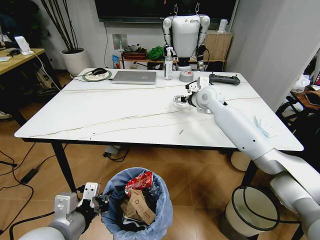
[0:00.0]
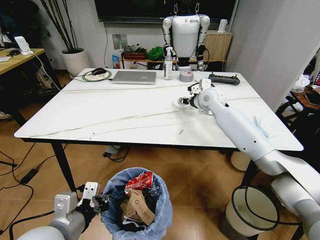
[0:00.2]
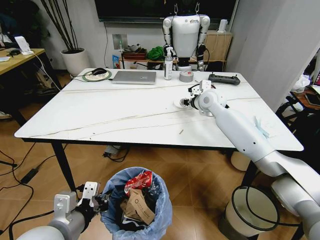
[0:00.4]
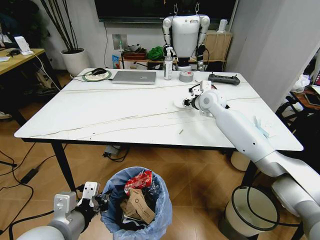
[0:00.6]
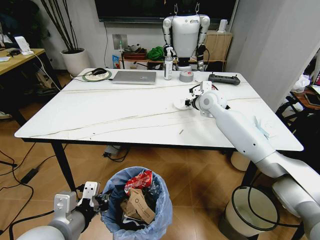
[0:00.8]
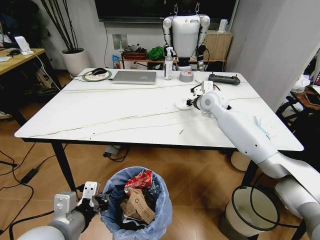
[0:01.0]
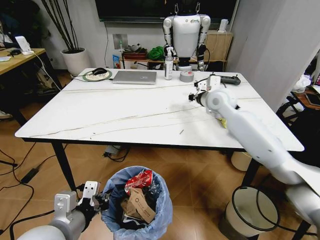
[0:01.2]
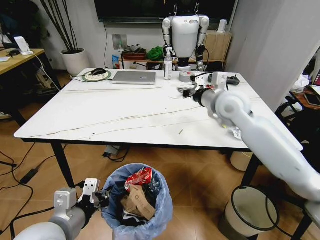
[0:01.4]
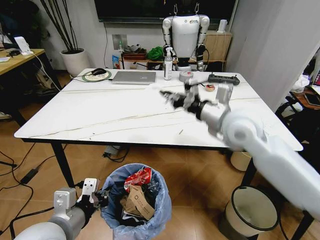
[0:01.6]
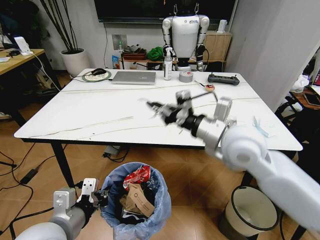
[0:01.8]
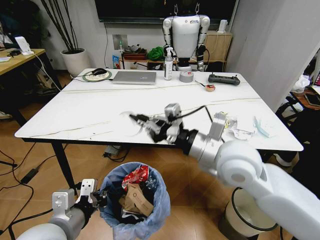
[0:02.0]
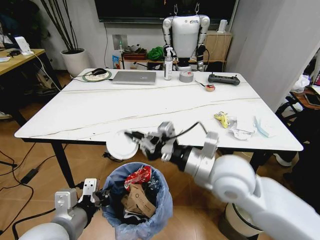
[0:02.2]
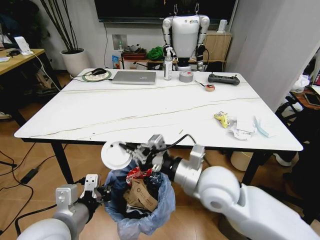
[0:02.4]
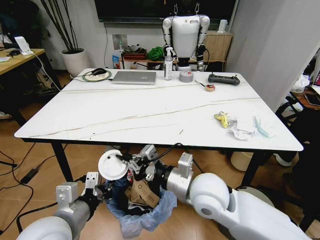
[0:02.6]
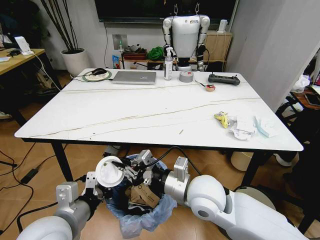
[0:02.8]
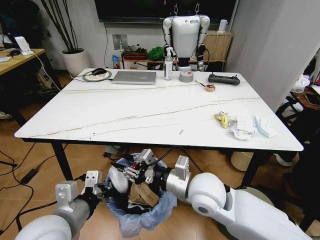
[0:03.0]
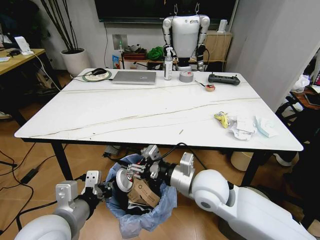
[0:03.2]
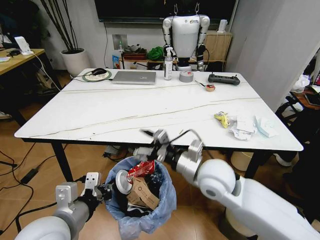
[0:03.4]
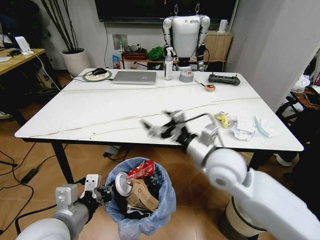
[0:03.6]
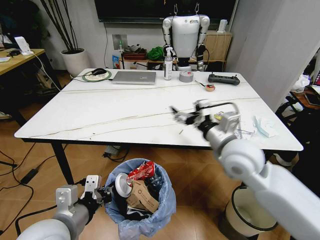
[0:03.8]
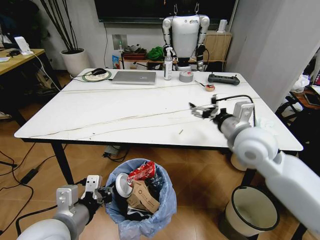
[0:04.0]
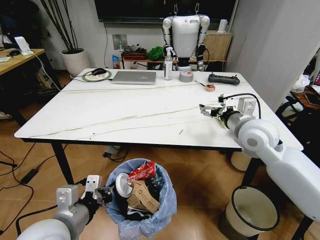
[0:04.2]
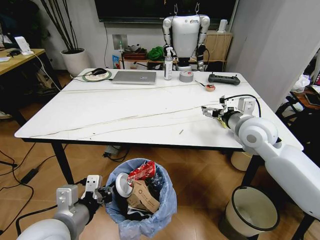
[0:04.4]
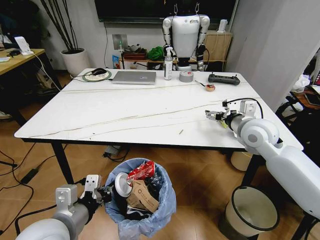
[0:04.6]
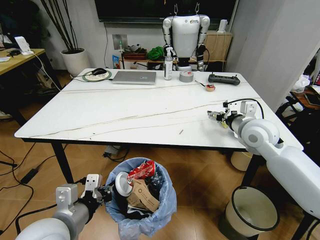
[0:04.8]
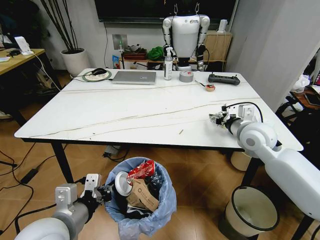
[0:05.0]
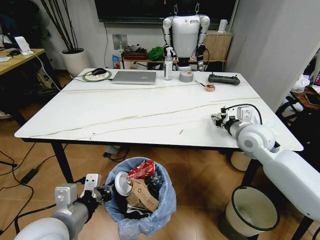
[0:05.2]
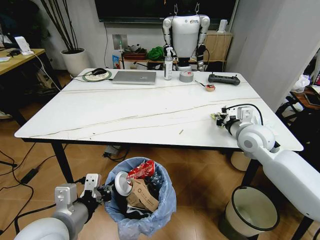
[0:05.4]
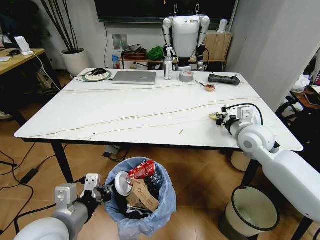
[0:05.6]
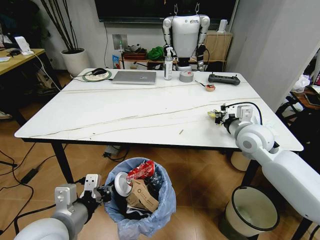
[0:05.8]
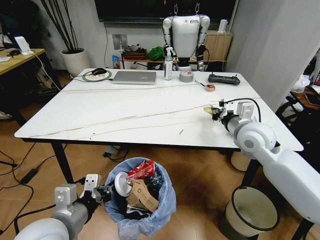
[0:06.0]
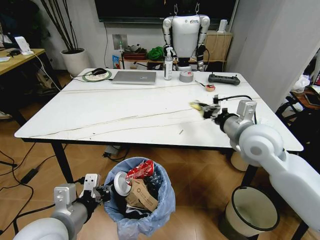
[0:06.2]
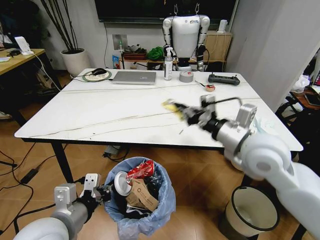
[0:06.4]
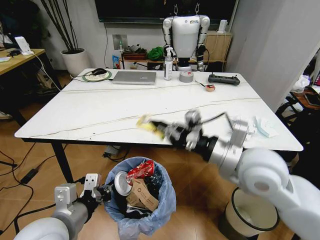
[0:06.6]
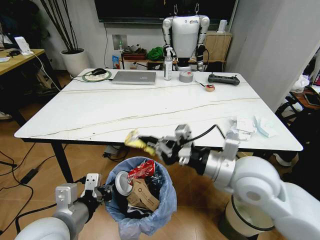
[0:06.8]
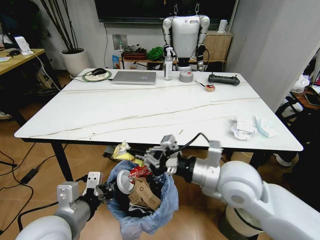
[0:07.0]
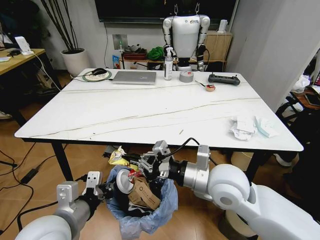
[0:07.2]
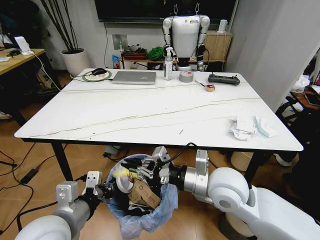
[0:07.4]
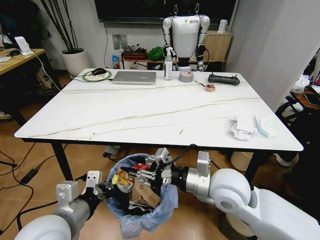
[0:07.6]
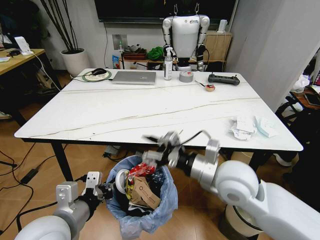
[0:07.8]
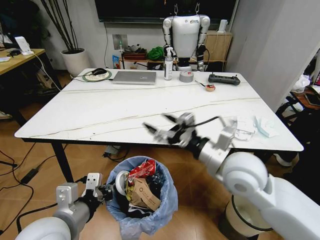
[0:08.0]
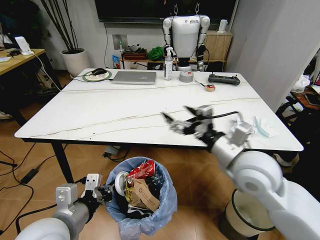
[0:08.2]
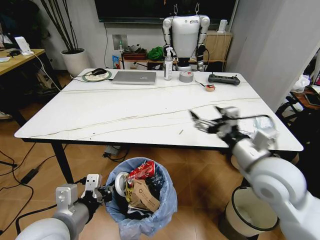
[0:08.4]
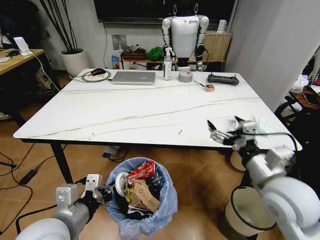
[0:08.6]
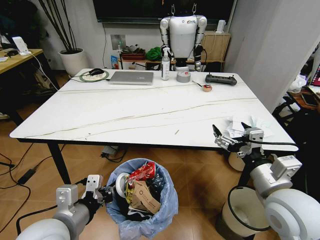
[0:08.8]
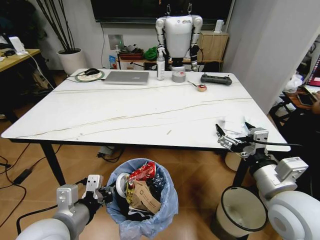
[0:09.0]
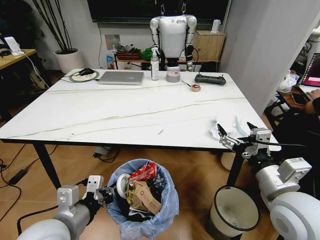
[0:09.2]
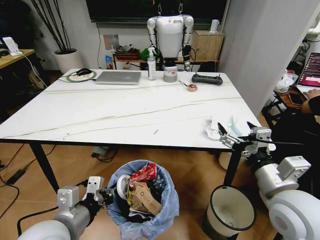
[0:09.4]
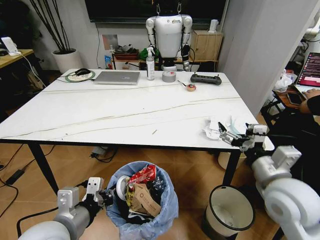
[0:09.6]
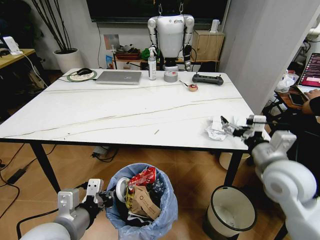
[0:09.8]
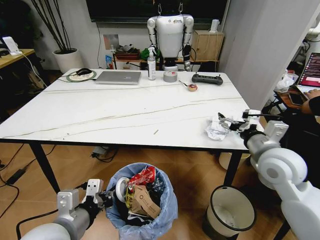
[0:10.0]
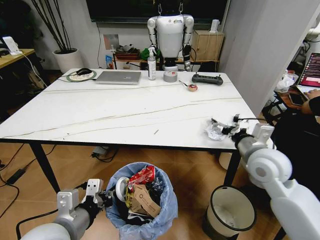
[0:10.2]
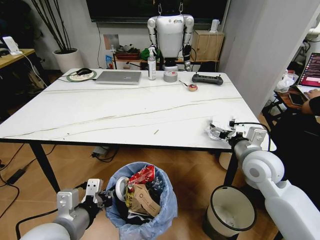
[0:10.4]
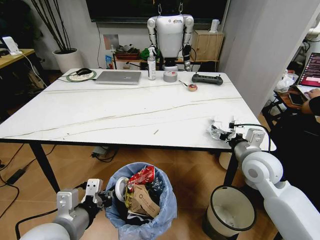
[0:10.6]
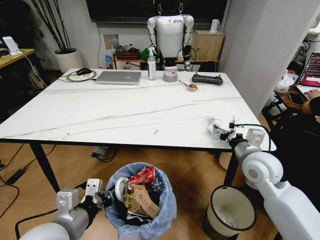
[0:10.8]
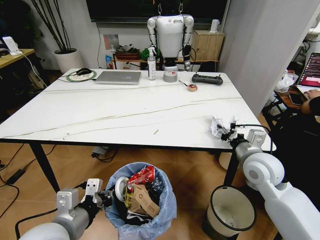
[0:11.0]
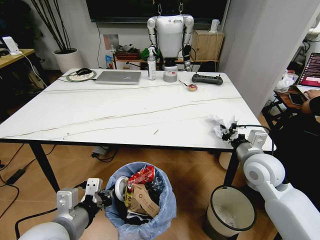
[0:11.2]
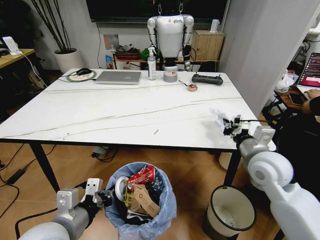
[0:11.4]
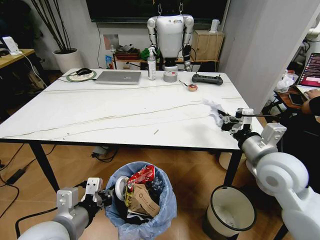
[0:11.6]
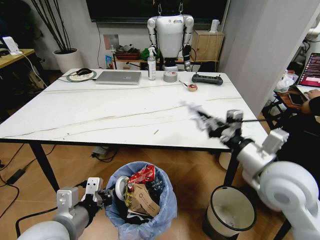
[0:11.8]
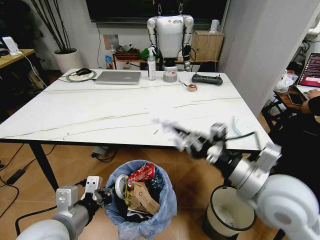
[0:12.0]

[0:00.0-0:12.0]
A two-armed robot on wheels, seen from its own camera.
Task of the whole recording: Pick up the trash bin and place the trash from the table into it.
0:00.0 to 0:01.6: The right gripper shifts about 20 cm backward, and closes its fingers.
0:01.6 to 0:03.0: The right gripper travels downward, backward and to the left by approximately 20 cm, and opens.
0:03.0 to 0:04.4: The right gripper moves to the right, forward and upward, approximately 25 cm, and opens.
0:04.4 to 0:06.0: The right gripper closes its fingers.
0:06.0 to 0:07.6: The right gripper heads backward and to the left, covering about 15 cm, and opens its fingers.
0:07.6 to 0:09.0: The right gripper is displaced to the right and backward by about 15 cm, and opens its fingers.
0:09.0 to 0:10.4: The right gripper heads forward, covering some 15 cm.
0:10.4 to 0:12.0: The right gripper moves backward and upward, approximately 10 cm, and closes.

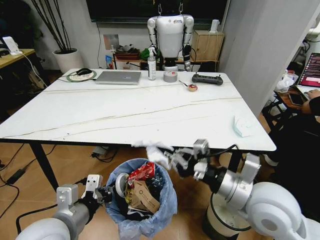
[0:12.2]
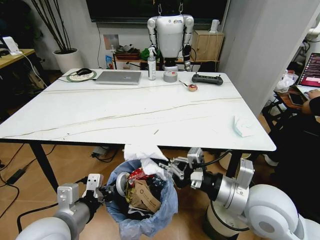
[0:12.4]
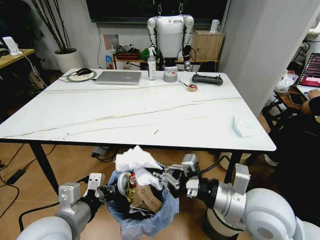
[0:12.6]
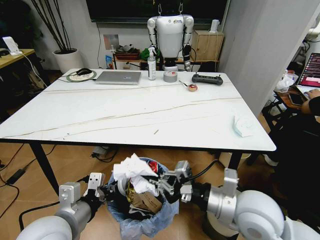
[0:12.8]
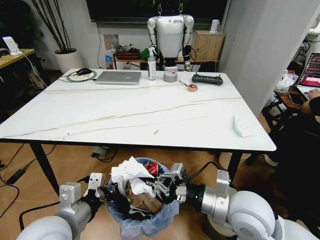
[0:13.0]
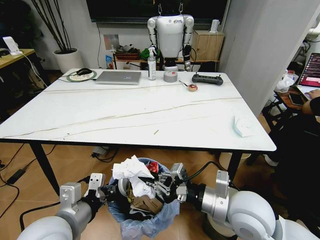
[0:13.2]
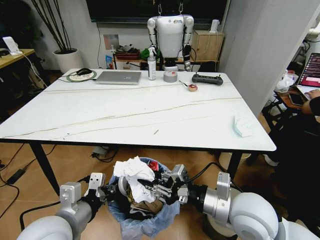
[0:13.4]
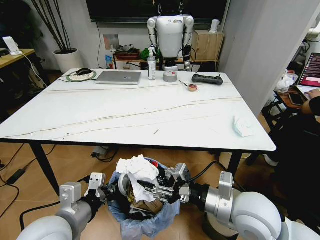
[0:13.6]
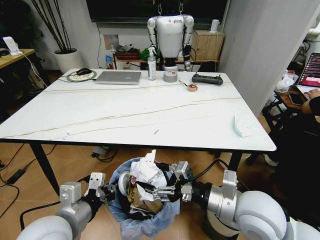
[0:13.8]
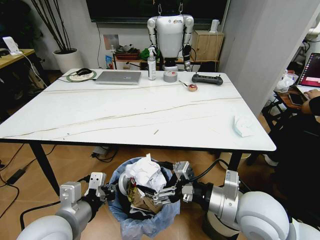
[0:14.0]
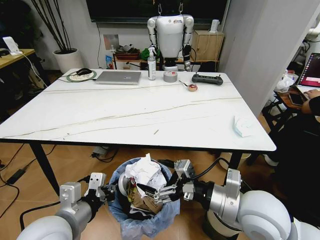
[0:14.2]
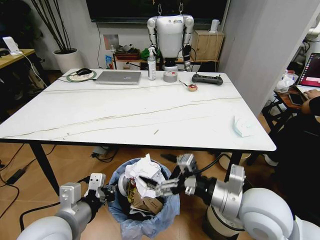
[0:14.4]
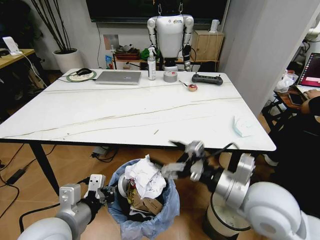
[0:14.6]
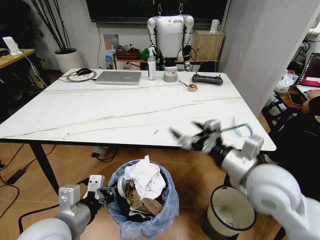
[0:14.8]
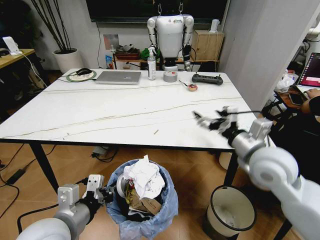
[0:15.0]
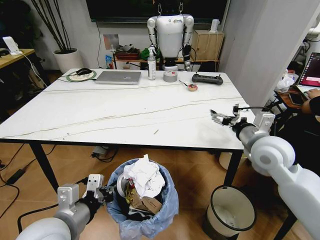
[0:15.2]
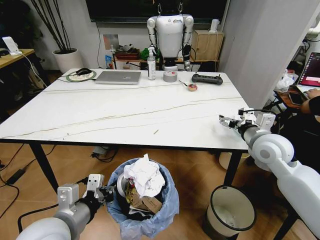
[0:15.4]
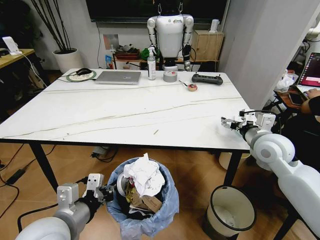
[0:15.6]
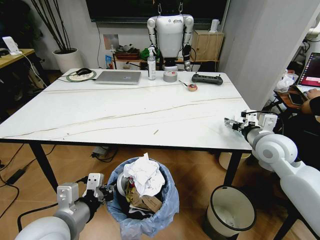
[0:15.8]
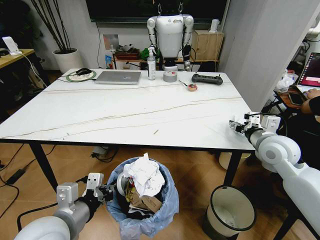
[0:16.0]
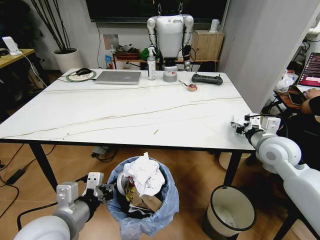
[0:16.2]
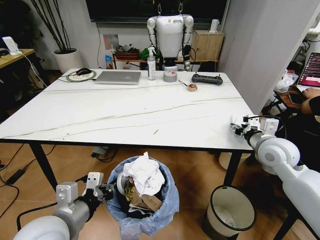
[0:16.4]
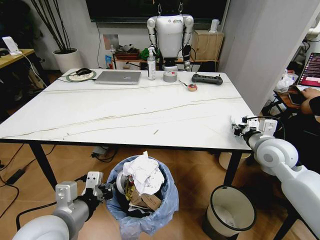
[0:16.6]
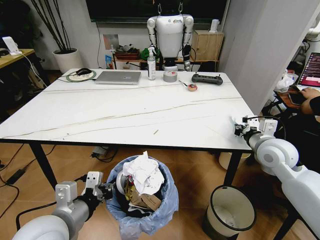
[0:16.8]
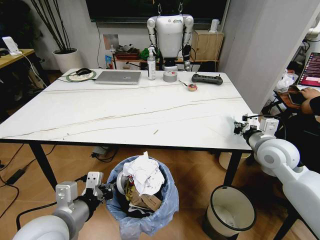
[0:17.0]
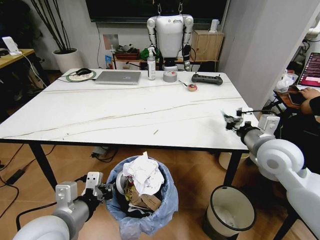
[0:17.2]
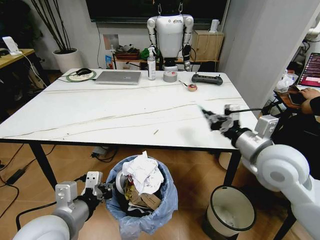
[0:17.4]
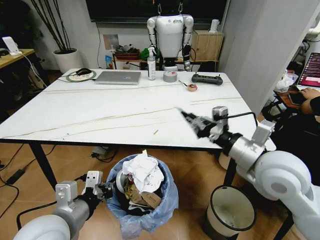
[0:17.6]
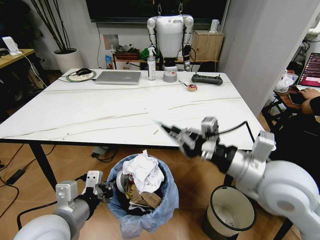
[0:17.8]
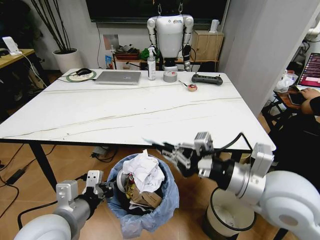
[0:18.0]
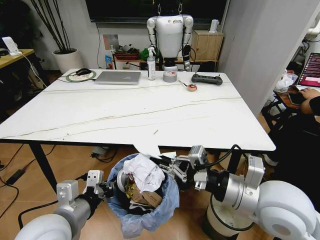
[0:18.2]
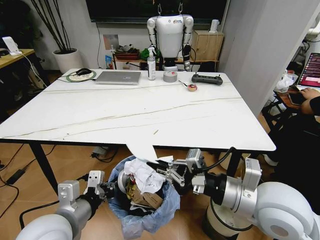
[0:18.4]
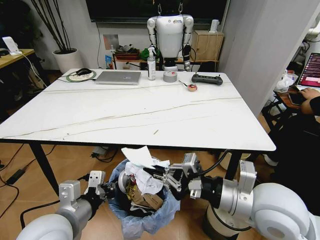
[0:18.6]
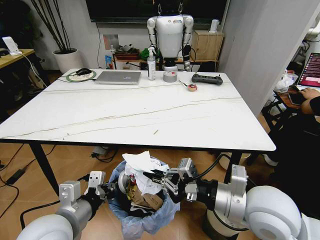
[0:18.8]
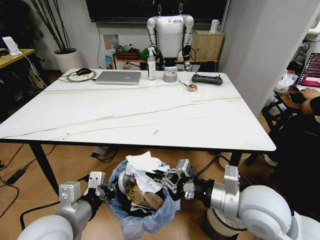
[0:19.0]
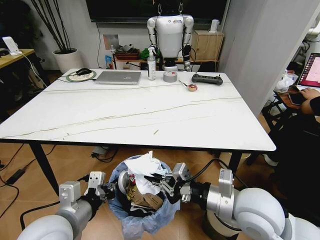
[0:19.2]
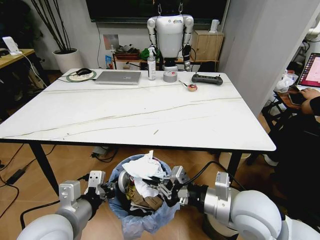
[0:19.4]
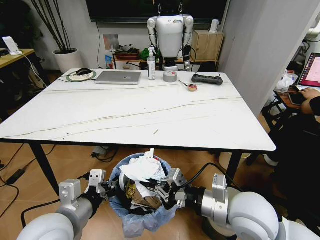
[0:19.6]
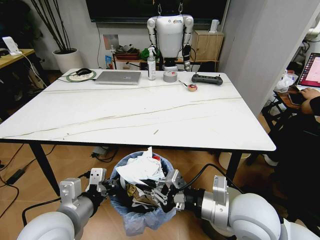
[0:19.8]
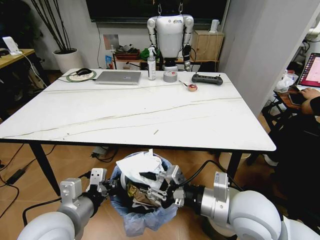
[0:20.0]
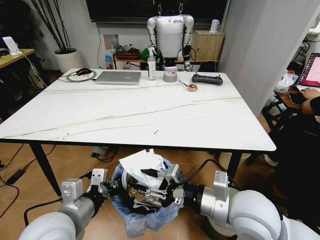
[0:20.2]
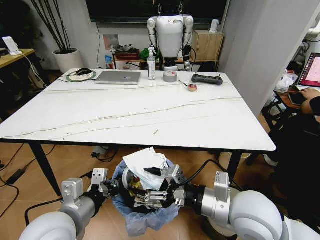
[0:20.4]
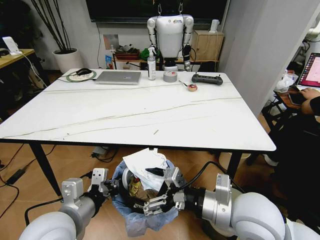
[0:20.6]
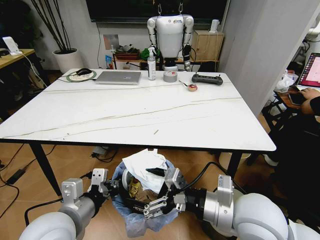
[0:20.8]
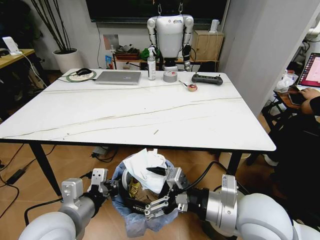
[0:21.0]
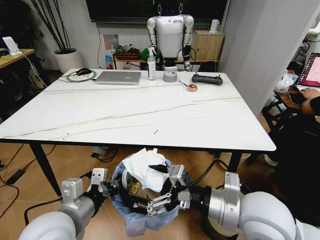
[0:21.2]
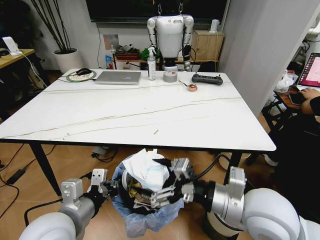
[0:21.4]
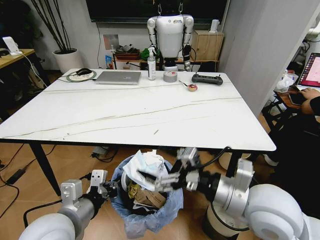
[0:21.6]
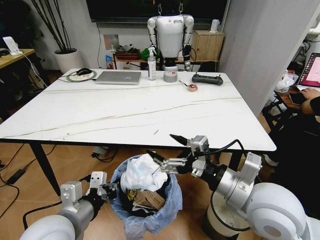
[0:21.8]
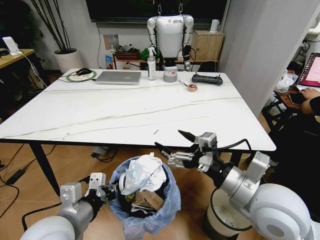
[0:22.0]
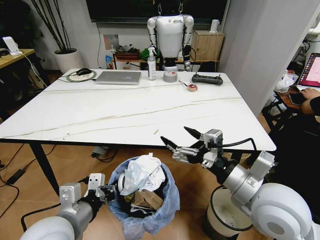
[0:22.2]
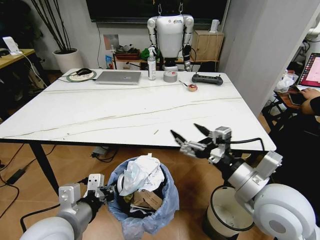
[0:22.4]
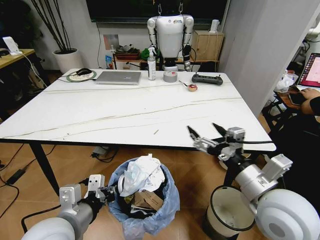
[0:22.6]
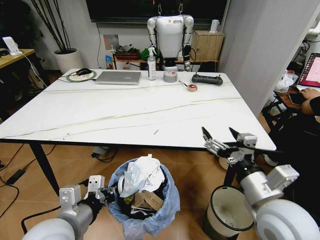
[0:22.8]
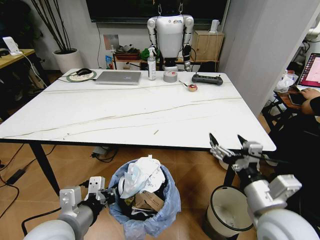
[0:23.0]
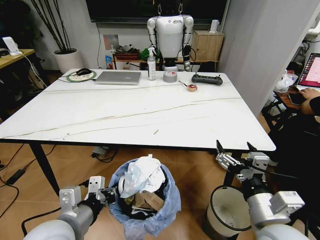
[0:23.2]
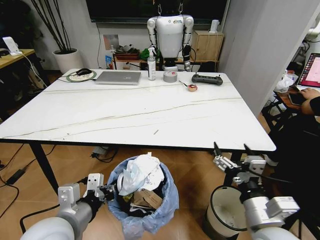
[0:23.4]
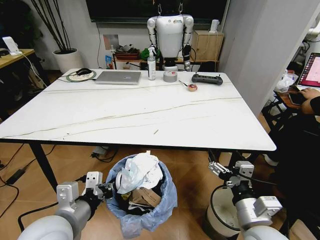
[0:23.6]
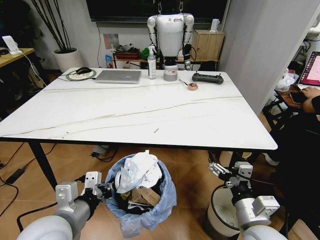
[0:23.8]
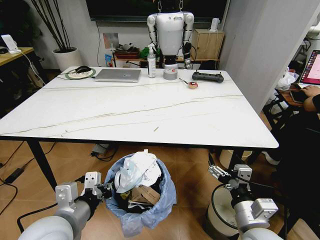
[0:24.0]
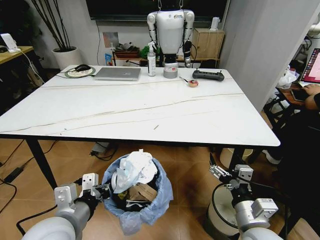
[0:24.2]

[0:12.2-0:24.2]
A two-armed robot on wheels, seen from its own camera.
Task of the whole recording: Pick up the trash bin and place the trash from the table into it.
0:12.2 to 0:13.8: The right gripper opens up.
0:13.8 to 0:15.2: The right gripper shifts roughly 20 cm forward and to the right.
0:15.2 to 0:16.6: The right gripper closes up.
0:16.6 to 0:18.2: The right gripper moves backward and to the left, some 20 cm.
0:18.2 to 0:19.8: The right gripper is displaced downward by approximately 5 cm.
0:19.8 to 0:21.2: The right gripper opens its fingers.
0:22.6 to 0:24.2: The right gripper moves downward, approximately 10 cm.
